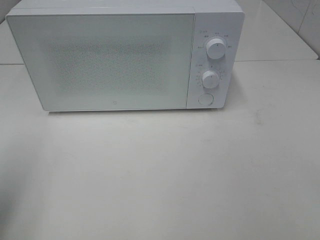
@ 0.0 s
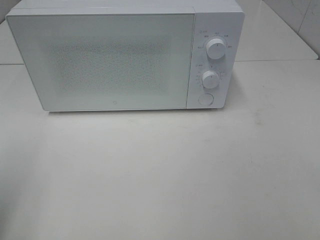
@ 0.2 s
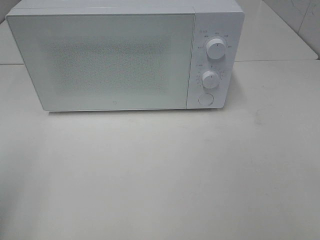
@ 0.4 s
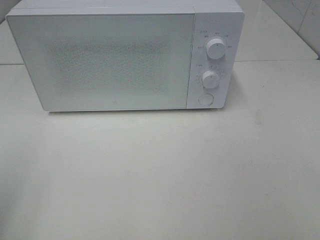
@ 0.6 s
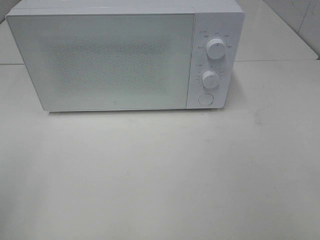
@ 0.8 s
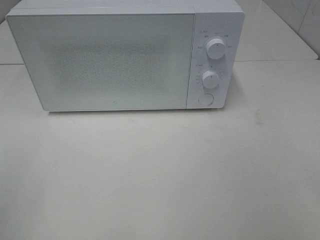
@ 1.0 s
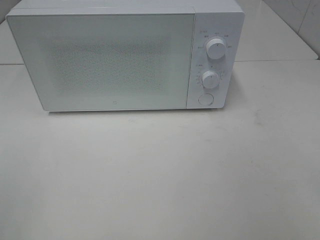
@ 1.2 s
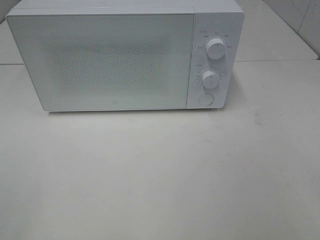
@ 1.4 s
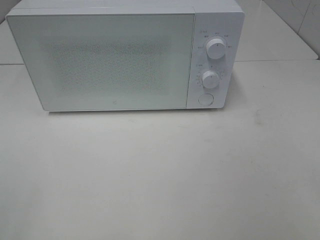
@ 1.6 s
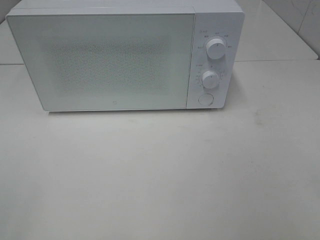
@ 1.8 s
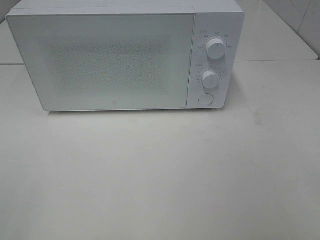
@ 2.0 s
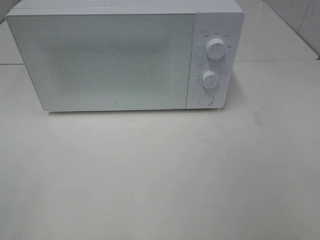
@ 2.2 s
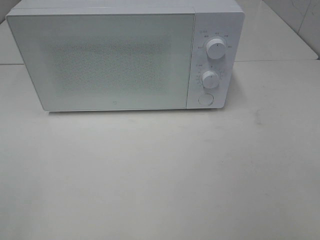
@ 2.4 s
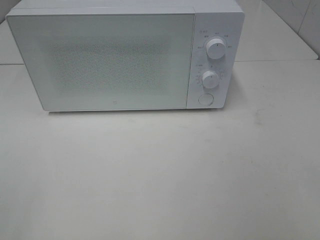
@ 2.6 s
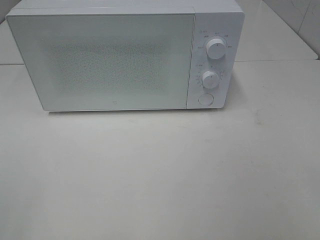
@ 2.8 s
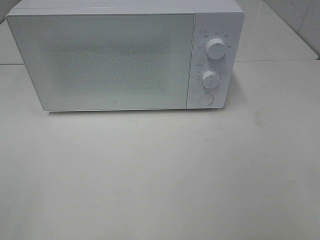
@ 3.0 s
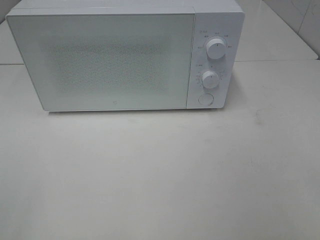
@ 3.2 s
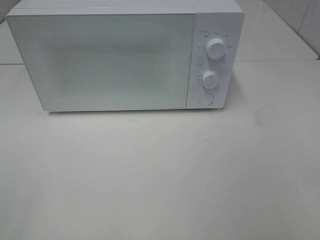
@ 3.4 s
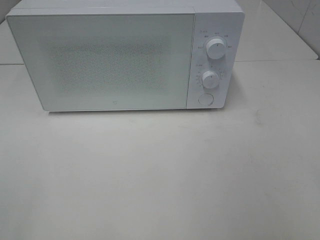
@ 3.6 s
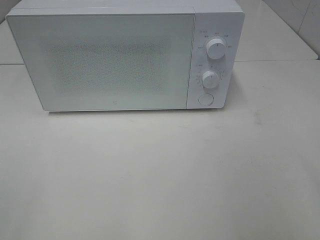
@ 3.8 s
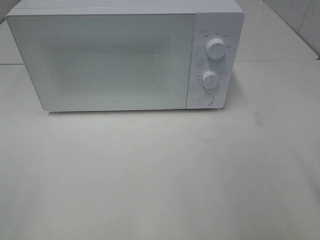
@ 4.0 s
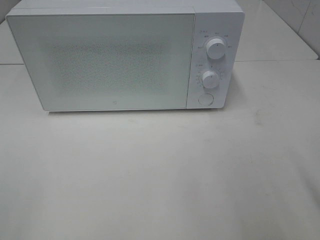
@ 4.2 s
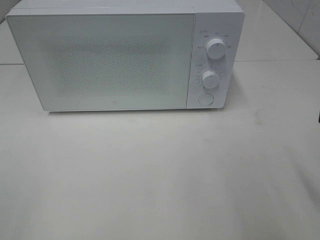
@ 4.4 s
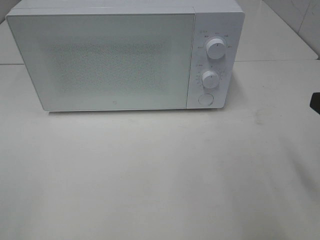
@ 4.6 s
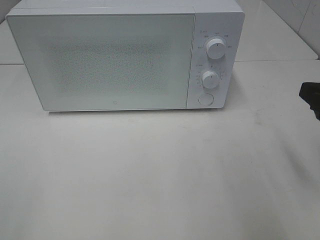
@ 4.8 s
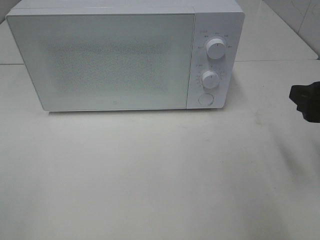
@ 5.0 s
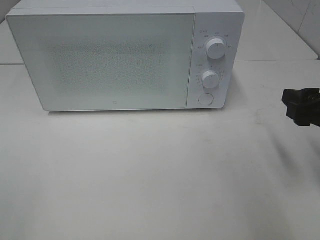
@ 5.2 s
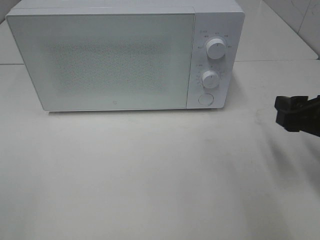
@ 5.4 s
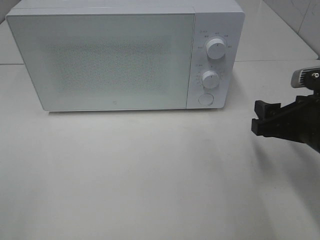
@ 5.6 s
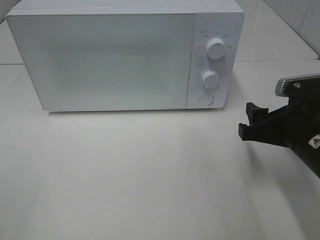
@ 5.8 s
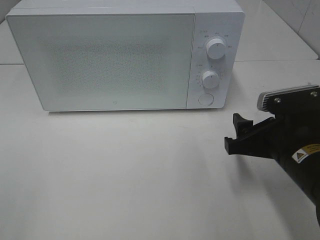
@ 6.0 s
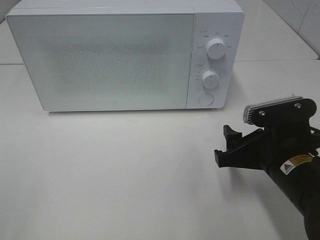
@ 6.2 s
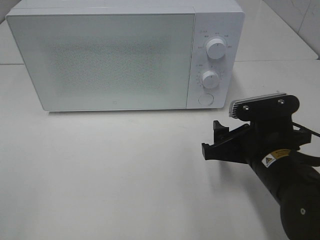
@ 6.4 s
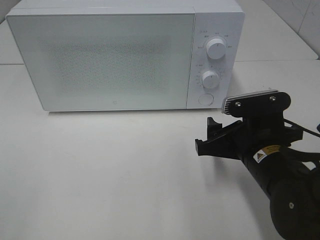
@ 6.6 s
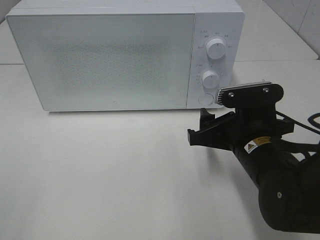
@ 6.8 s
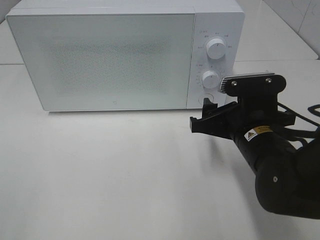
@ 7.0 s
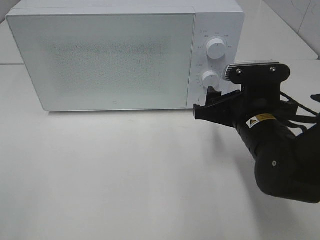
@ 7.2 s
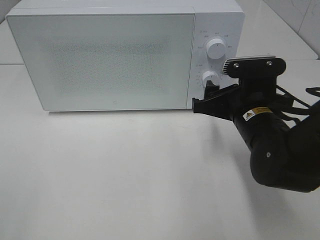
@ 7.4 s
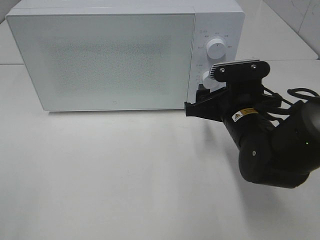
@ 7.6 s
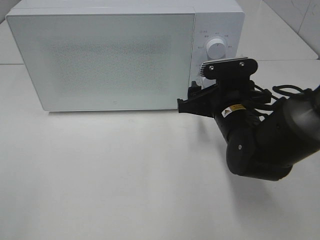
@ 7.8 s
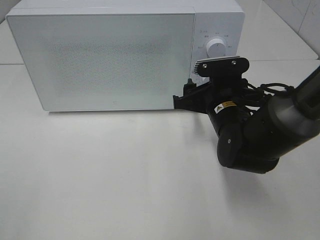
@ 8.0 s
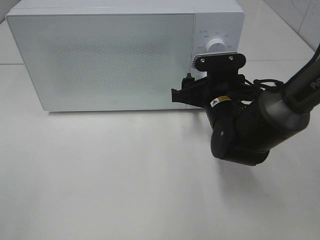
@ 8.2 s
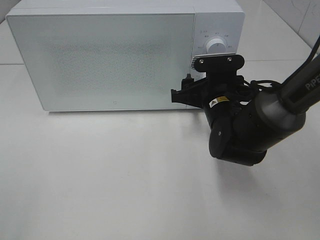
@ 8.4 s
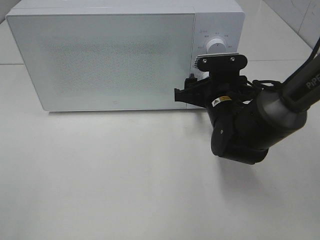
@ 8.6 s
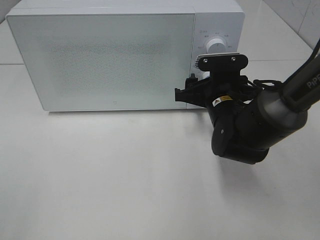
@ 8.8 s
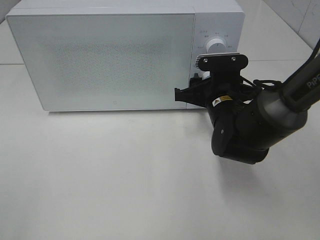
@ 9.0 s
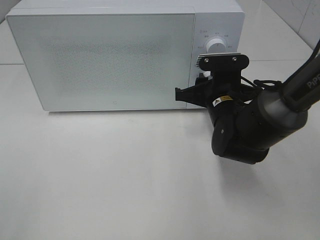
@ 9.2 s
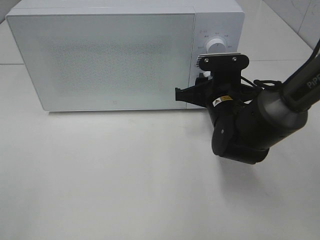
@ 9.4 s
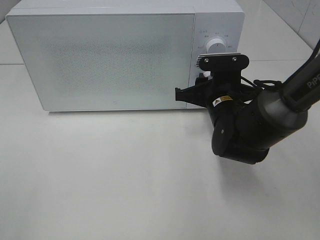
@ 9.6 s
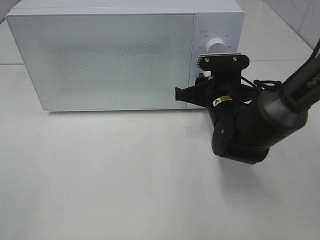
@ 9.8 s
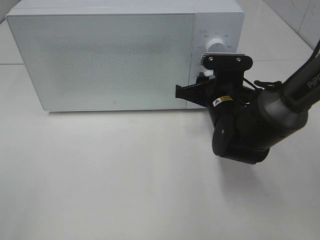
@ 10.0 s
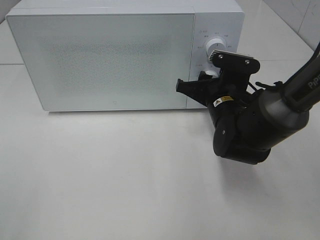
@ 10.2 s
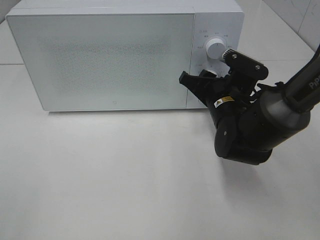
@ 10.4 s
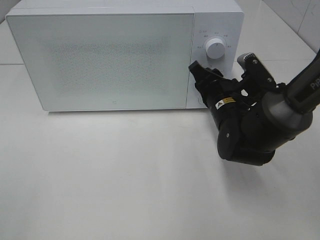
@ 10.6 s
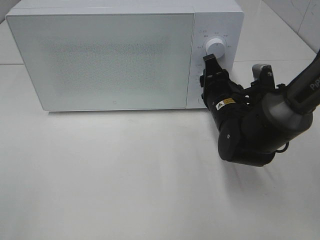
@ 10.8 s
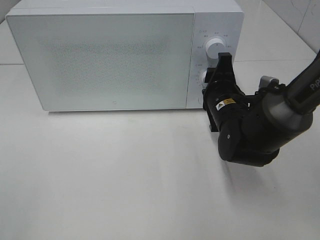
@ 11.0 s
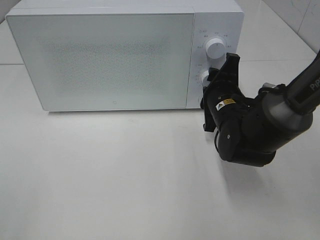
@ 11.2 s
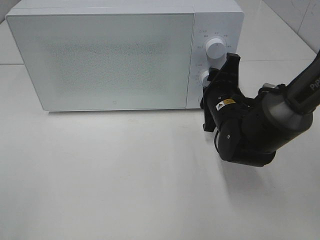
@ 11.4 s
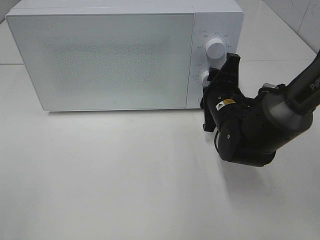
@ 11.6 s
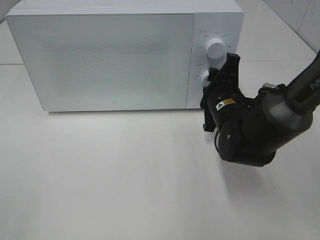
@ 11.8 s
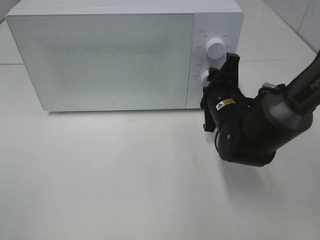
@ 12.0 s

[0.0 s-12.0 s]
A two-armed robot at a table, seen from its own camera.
Task of the whole recording: Heat the burger.
1.6 to 3.0 s: Both grippers stay put.
4.4 to 6.0 s: The right gripper heads downward, to the left and forward, covering roughly 15 cm.
6.0 to 7.6 s: The right gripper travels forward and to the left by some 10 cm.
7.6 to 9.0 s: The right gripper is displaced forward by some 5 cm.

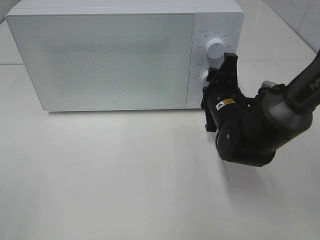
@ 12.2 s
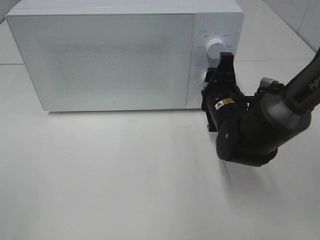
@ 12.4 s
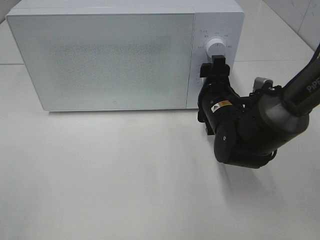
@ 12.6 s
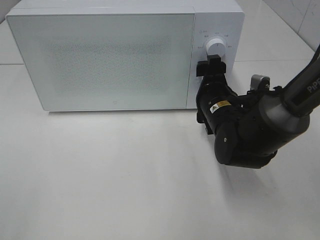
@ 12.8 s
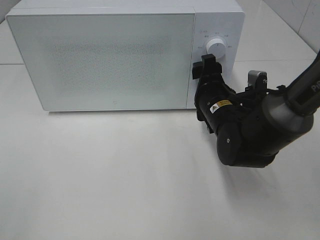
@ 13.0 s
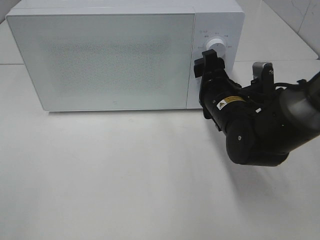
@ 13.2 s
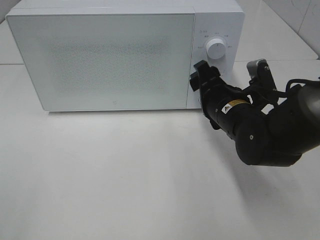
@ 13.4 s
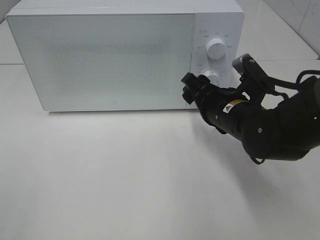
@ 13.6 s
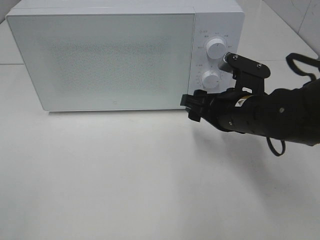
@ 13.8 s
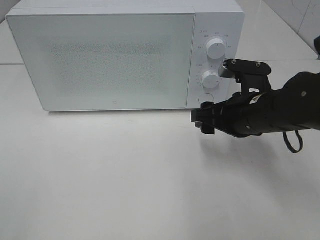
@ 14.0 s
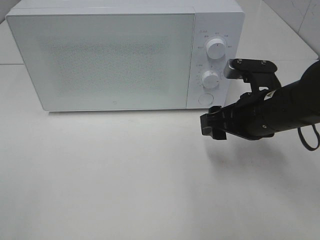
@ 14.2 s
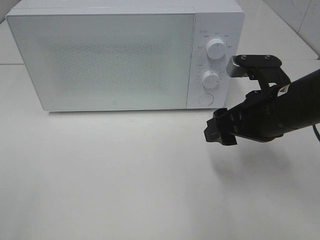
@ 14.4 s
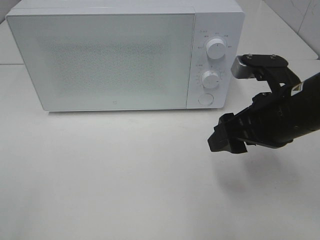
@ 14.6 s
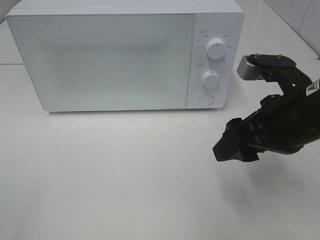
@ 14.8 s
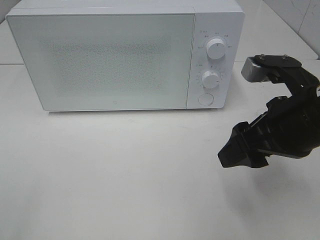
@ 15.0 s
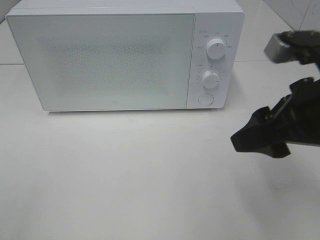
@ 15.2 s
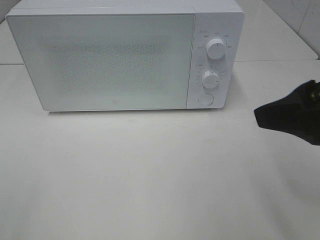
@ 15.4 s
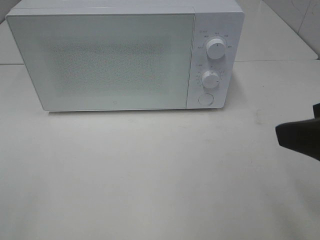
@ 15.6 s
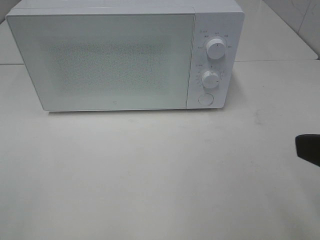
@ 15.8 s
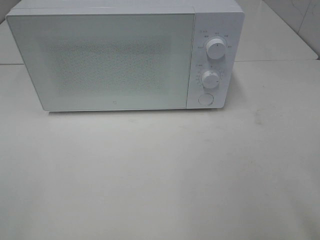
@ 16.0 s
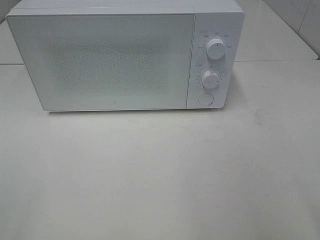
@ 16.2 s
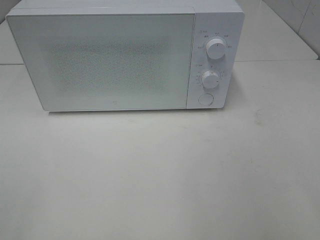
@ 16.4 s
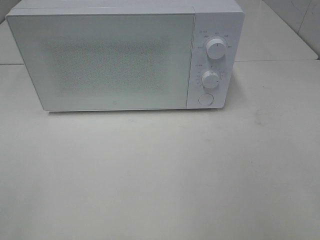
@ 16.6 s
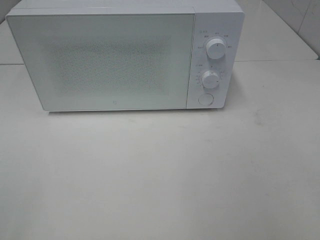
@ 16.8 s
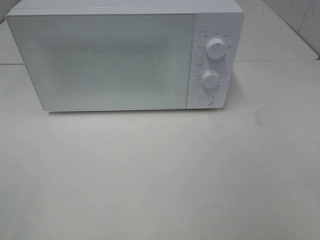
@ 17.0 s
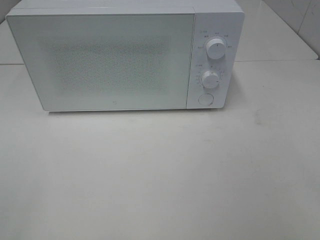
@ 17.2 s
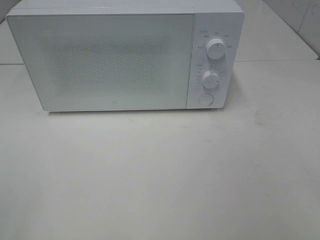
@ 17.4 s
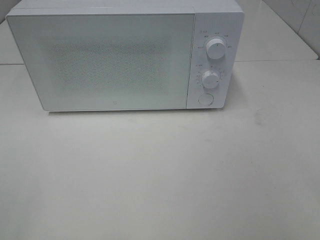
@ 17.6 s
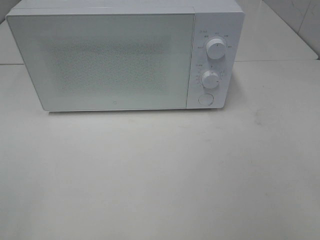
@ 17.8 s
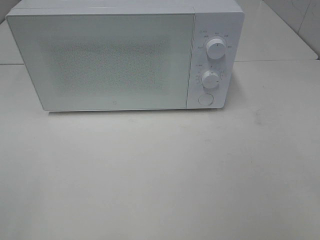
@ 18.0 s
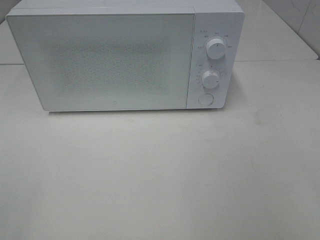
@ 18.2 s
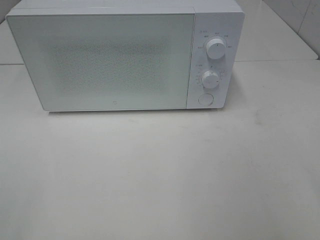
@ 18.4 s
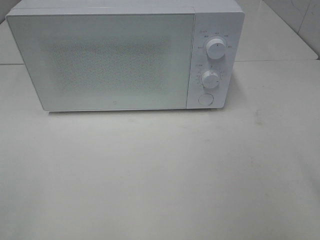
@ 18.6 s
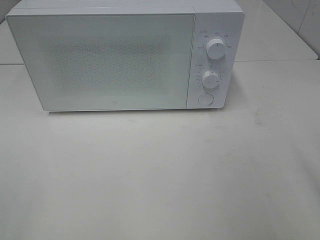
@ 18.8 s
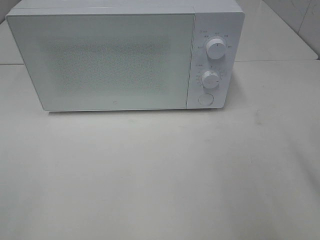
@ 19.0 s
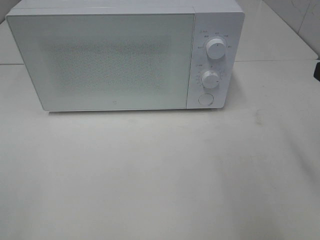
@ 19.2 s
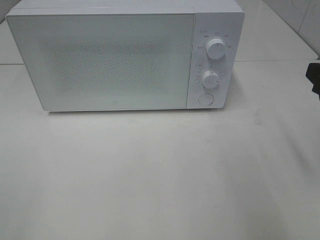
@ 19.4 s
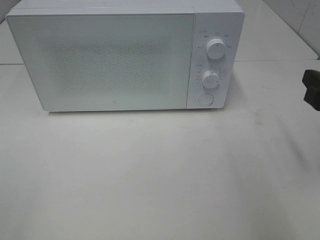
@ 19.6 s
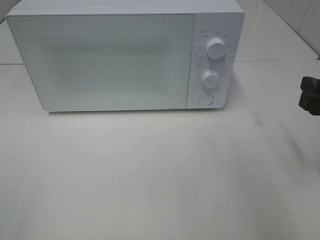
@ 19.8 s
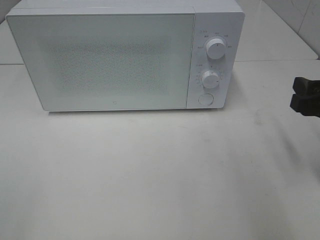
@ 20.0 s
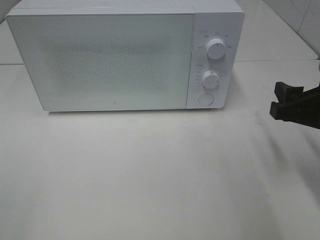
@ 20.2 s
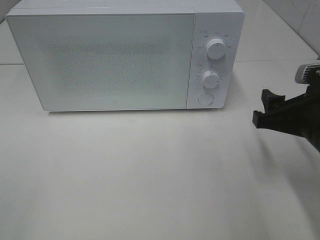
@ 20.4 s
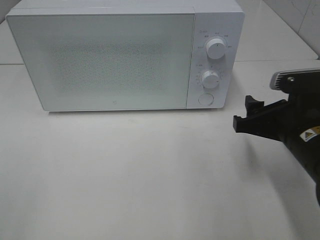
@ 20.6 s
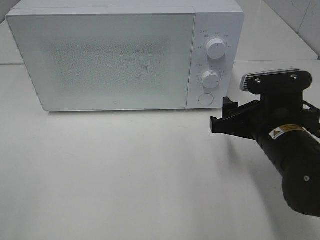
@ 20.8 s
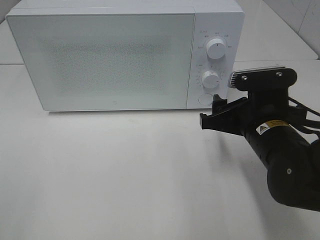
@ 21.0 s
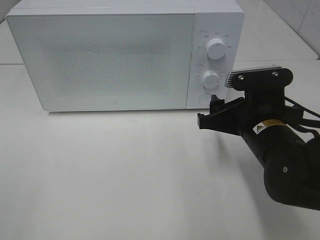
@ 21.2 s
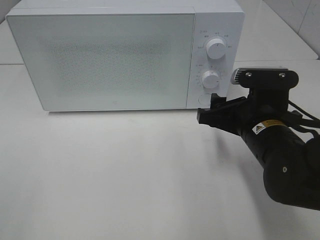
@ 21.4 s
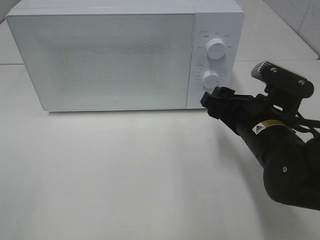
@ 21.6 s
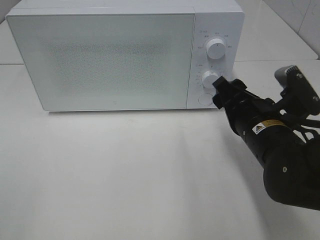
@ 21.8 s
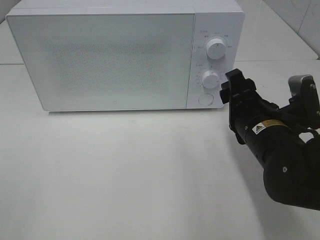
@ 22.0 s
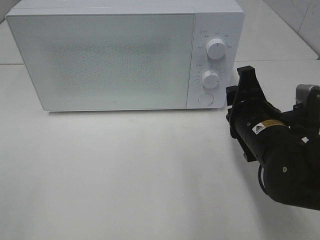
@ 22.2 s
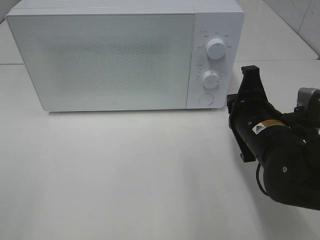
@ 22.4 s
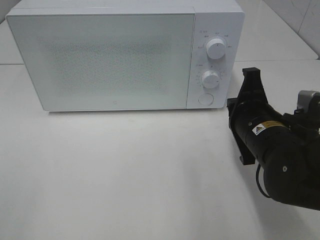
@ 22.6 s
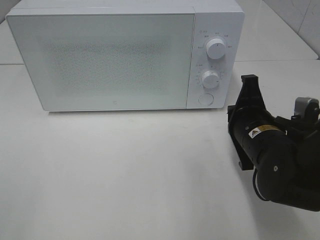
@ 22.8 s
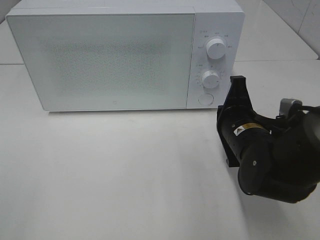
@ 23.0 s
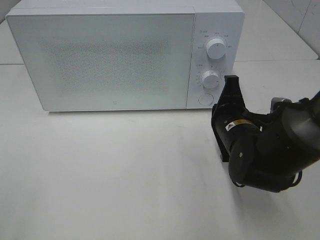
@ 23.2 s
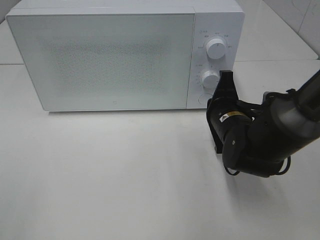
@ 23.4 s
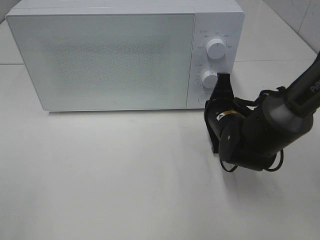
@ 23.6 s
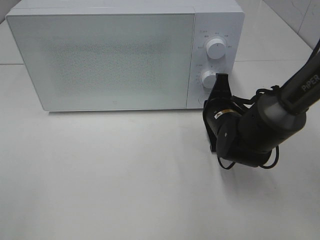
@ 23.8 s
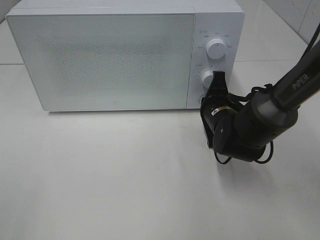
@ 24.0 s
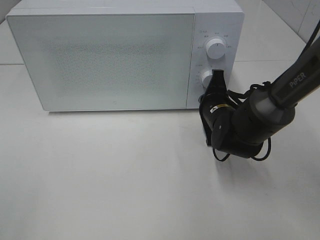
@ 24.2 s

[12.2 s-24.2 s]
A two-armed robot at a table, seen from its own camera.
Task of the whole recording: Heat the burger.
12.2 to 13.8 s: The right gripper changes place by about 5 cm, and opens.
13.8 to 15.2 s: The right gripper goes approximately 15 cm upward, backward and to the right.
15.2 to 16.6 s: The right gripper goes about 20 cm backward and to the right.
18.2 to 19.8 s: The right gripper travels forward and downward by approximately 20 cm.
19.8 to 21.2 s: The right gripper goes some 15 cm to the left and downward.
21.2 to 22.6 s: The right gripper closes up.
22.6 to 24.2 s: The right gripper shifts about 15 cm forward and downward.
